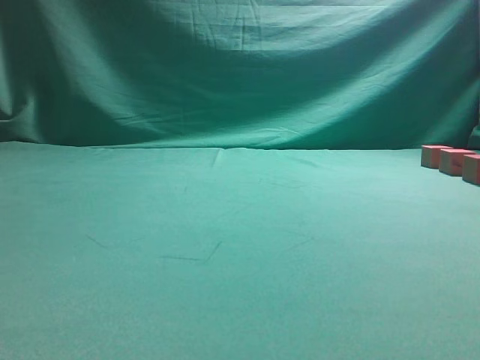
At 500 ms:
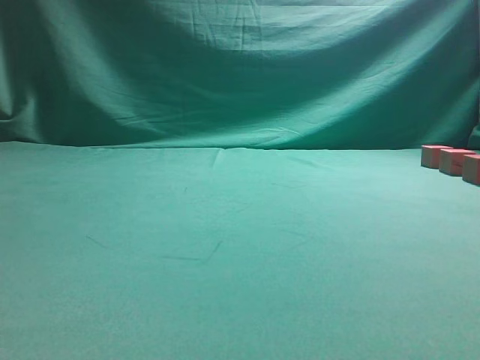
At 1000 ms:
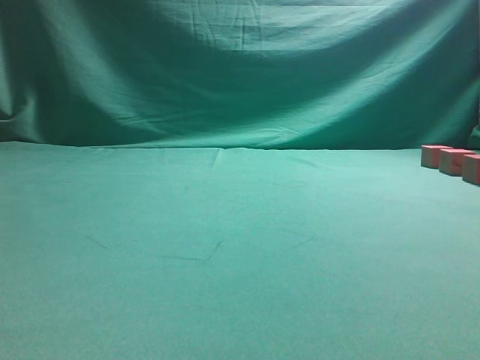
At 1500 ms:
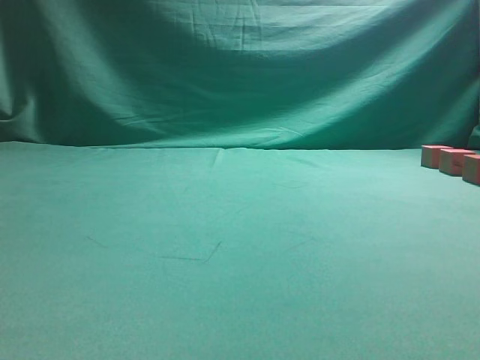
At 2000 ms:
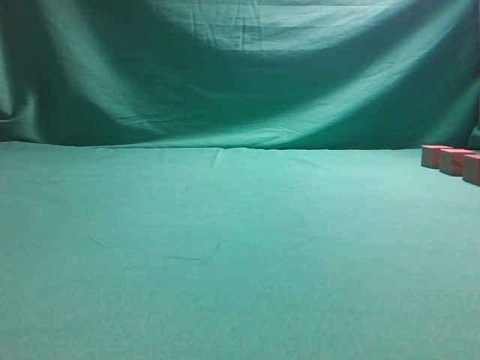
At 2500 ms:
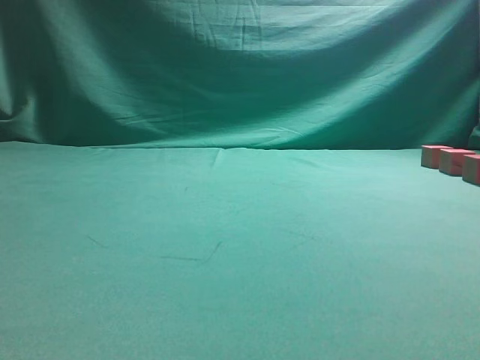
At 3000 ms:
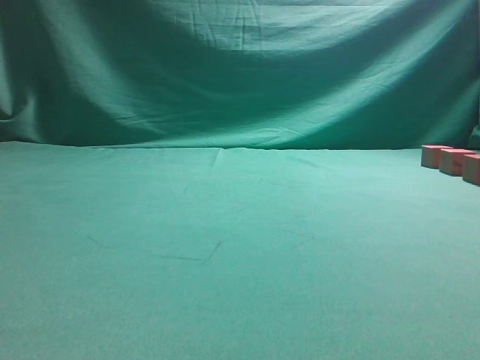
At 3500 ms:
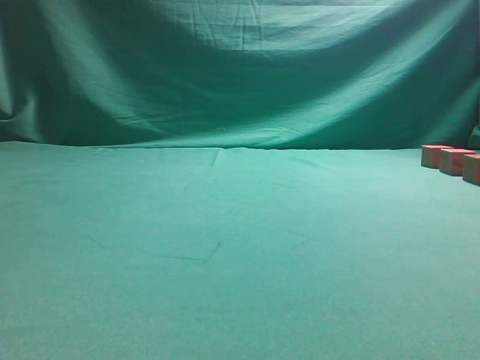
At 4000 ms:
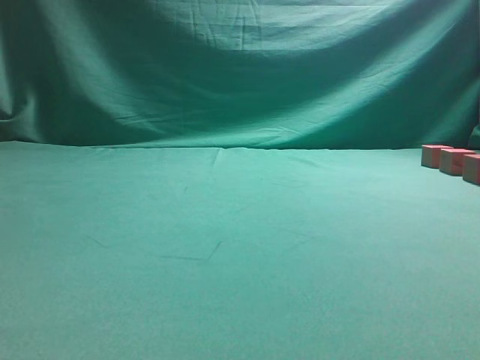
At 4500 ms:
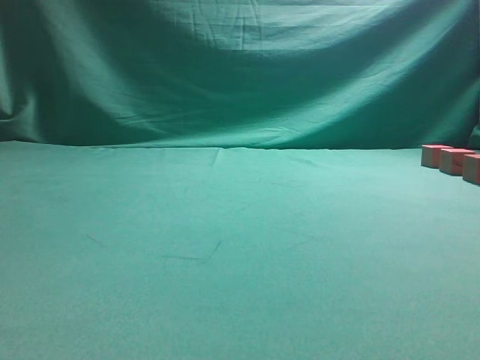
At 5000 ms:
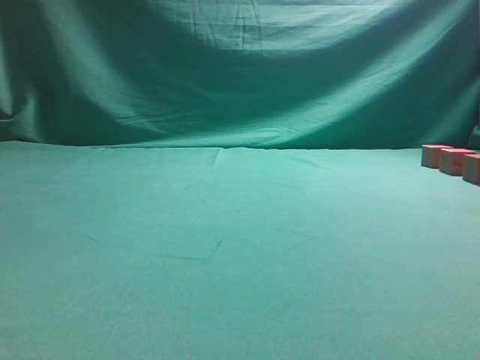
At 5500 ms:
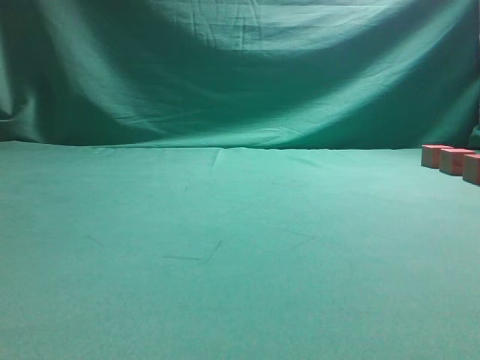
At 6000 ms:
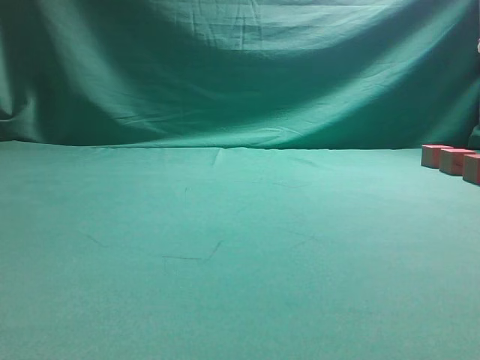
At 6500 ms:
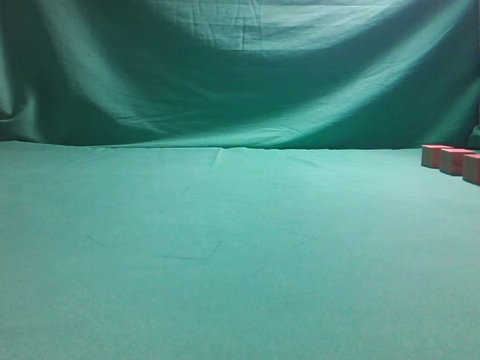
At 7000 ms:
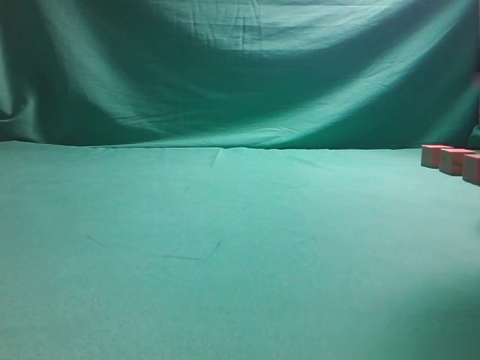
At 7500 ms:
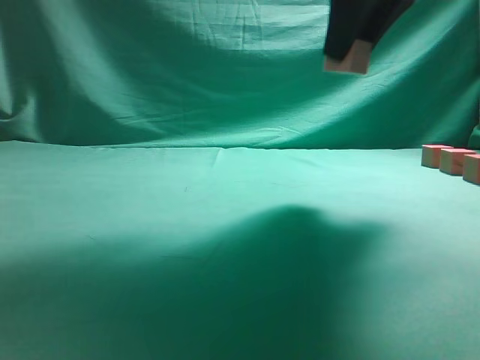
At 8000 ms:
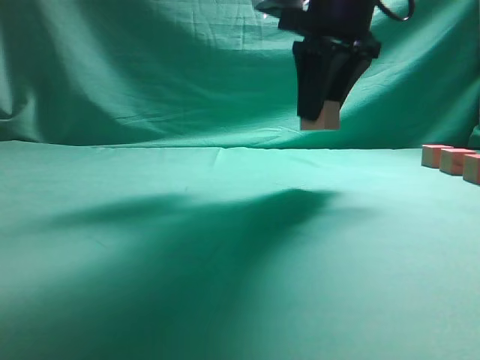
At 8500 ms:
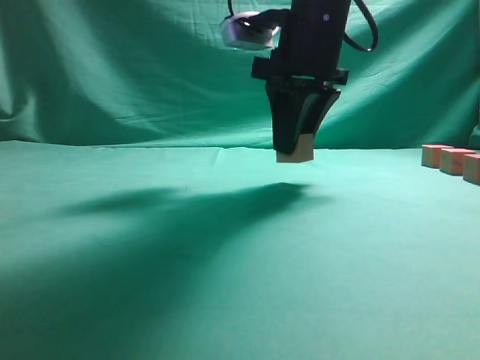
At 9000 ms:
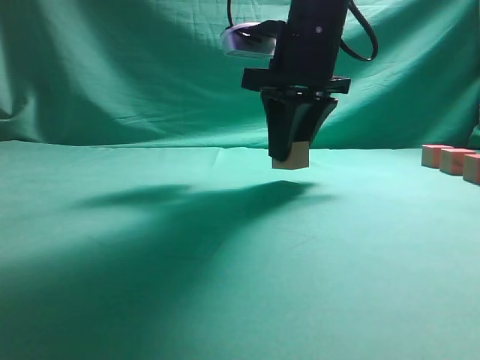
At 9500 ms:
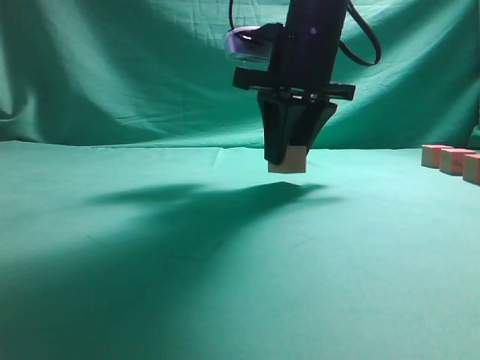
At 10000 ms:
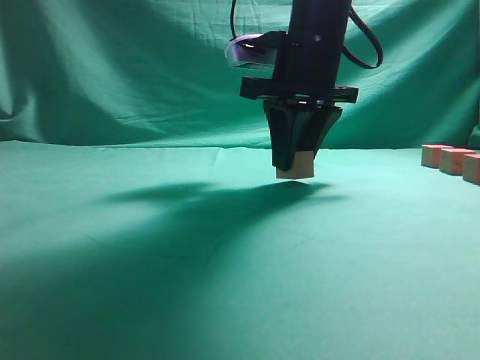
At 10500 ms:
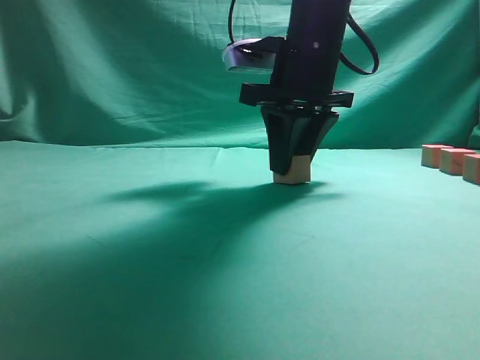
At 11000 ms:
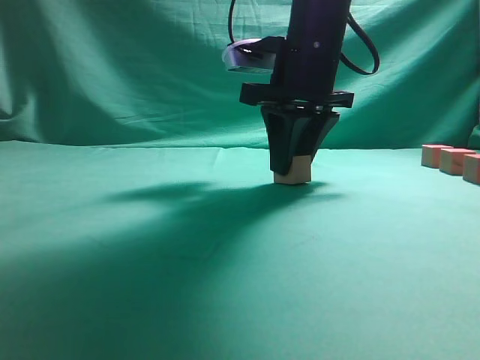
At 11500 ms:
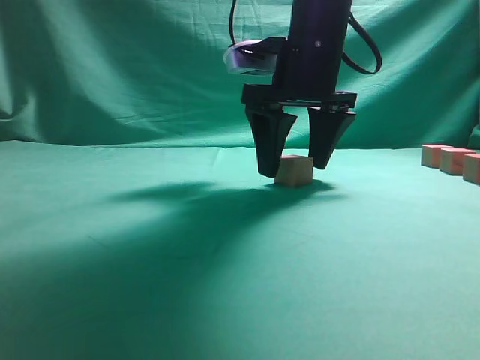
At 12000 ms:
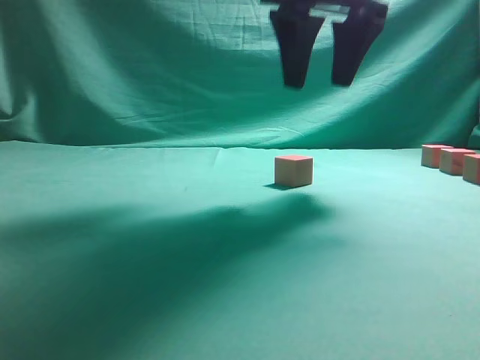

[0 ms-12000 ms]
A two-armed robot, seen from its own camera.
Task of the whole recording: pick up the multiple cubes in two columns one by one and place them in another position on the table.
Step, 7000 ms to 12000 ms: Place the block at the correct position to assemble the letter S.
6000 ms to 8000 ms: The right gripper goes approximately 20 cm to the left, forward and upward.
8000 ms to 10000 ms: The right gripper travels downward by about 5 cm.
10000 ms to 12000 ms: The right gripper heads upward, covering approximately 10 cm, and opens its fingers.

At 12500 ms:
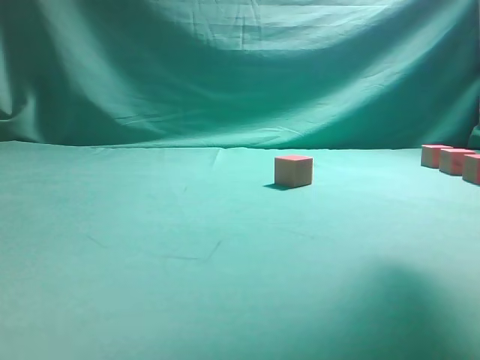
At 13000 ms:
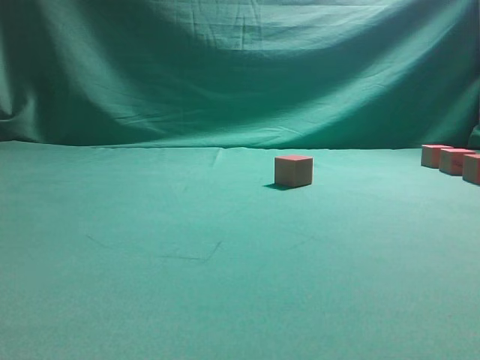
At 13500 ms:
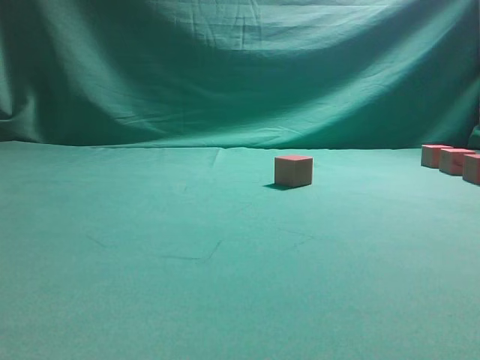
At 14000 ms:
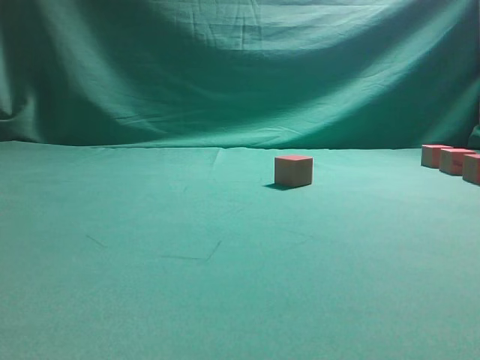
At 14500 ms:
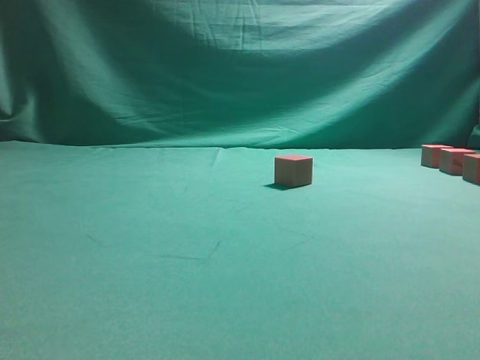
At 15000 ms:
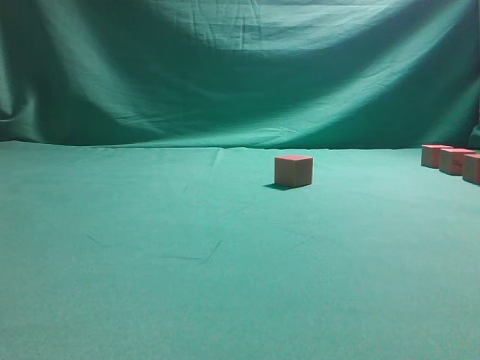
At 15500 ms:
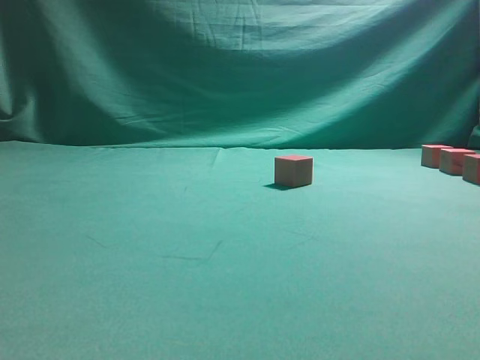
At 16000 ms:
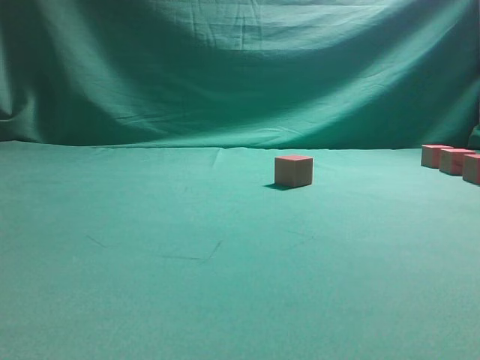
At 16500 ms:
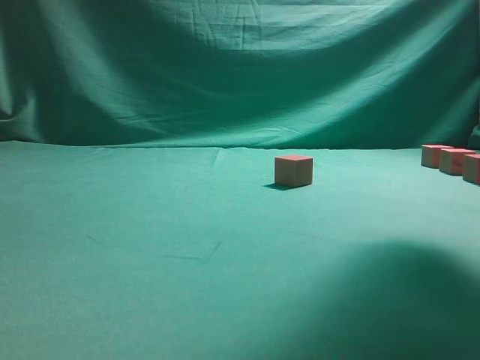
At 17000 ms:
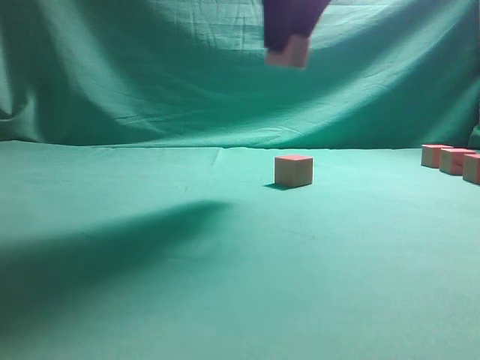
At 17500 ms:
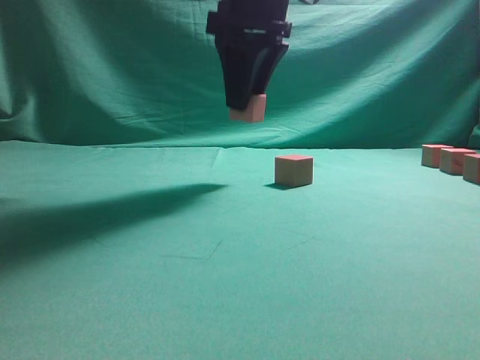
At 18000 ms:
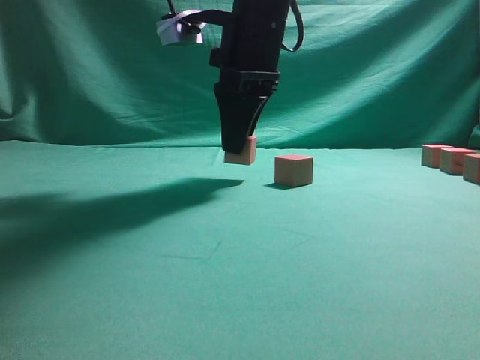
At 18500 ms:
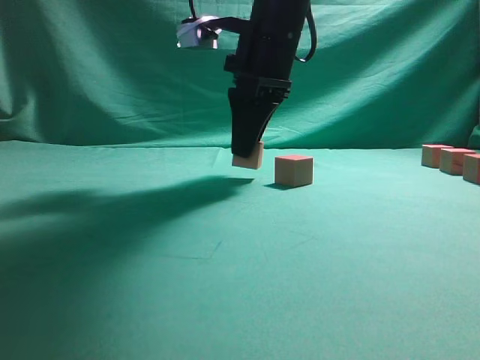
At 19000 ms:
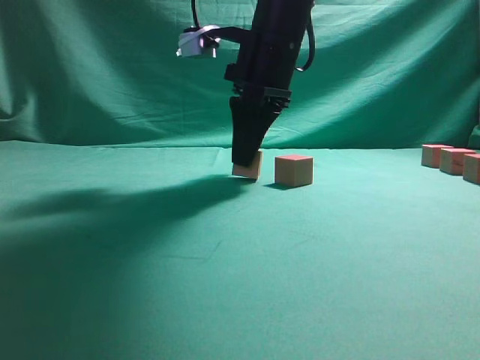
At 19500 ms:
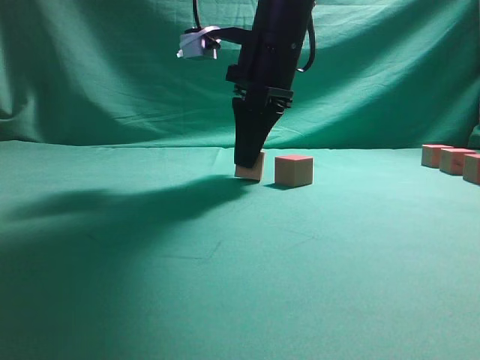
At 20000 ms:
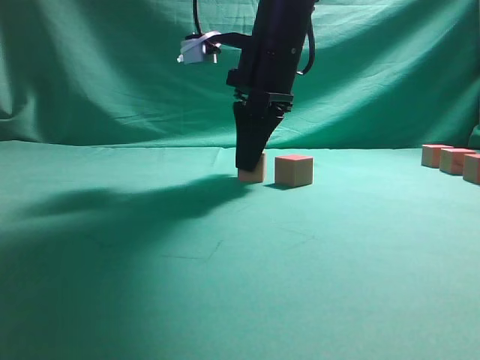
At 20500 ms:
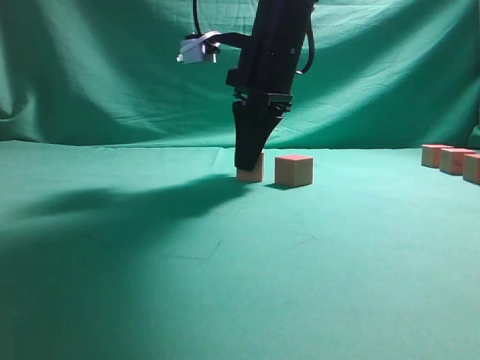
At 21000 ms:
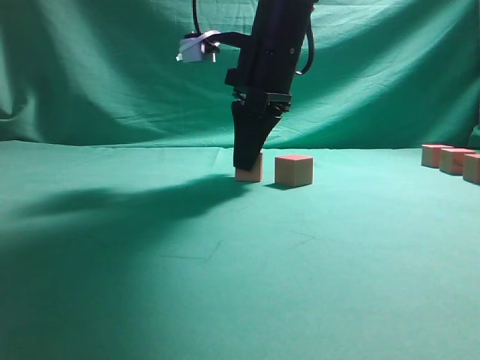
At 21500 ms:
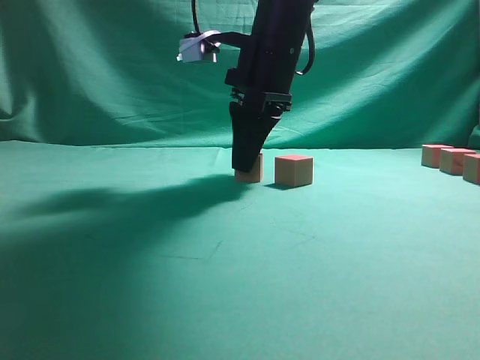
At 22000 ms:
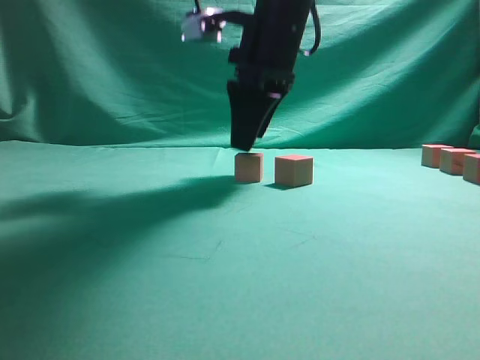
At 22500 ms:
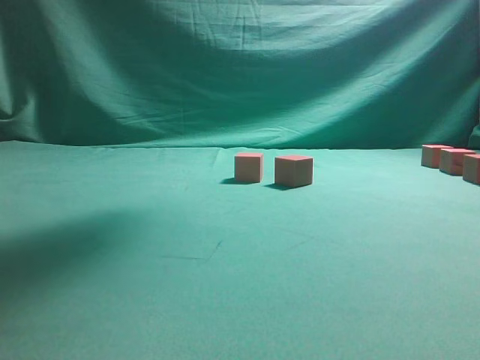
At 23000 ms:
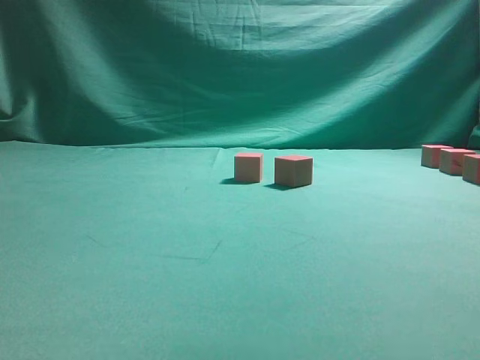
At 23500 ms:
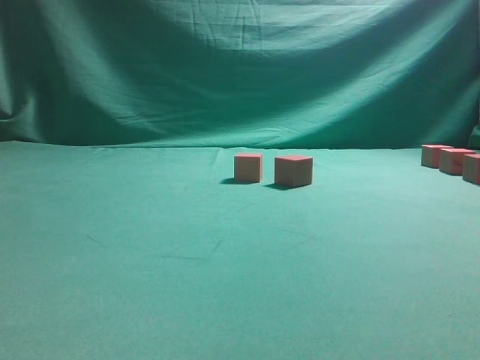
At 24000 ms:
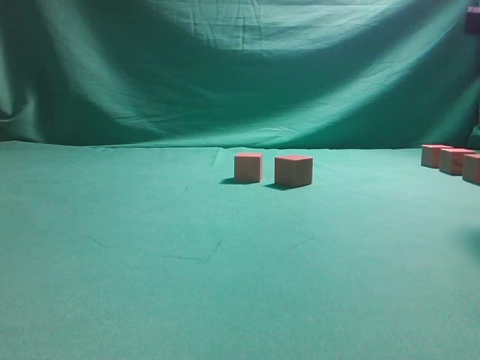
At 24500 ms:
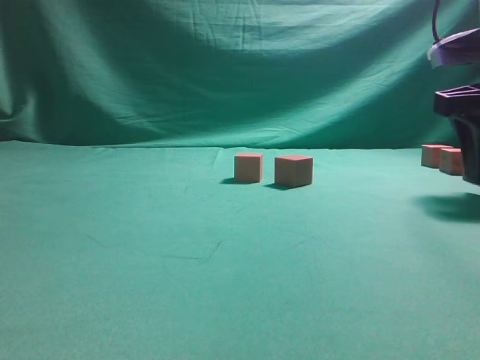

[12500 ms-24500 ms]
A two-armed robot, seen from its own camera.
Task of the whole recording: pick up the multiple cubes in two columns one by one and place them in another position on the table.
Step, 12500 ms to 16000 ms: Pick up the block on the table.
Step, 16500 ms to 22000 ms: Place the block at the correct position to assemble the letter S.
12500 ms to 14500 ms: The right gripper travels to the right and downward by approximately 25 cm.
14500 ms to 16500 ms: The right gripper travels to the left and upward by about 25 cm, and closes its fingers.
16500 ms to 18500 ms: The right gripper shifts roughly 25 cm to the left, downward and forward.
18500 ms to 20500 ms: The grippers move only a little.
20500 ms to 22500 ms: The right gripper travels upward by approximately 20 cm, and opens up.
22500 ms to 24500 ms: The right gripper shifts approximately 25 cm downward and to the right.

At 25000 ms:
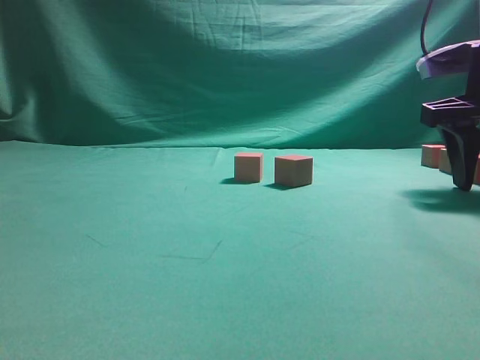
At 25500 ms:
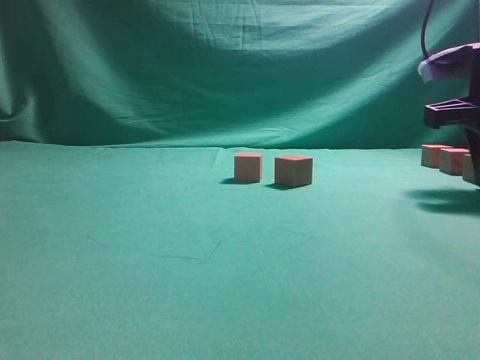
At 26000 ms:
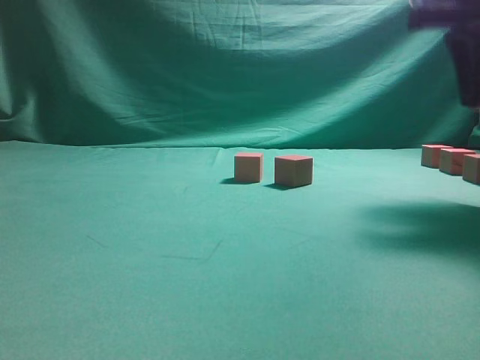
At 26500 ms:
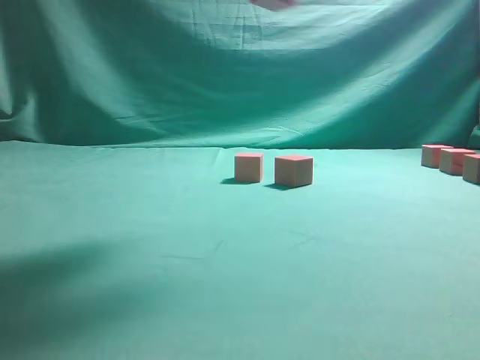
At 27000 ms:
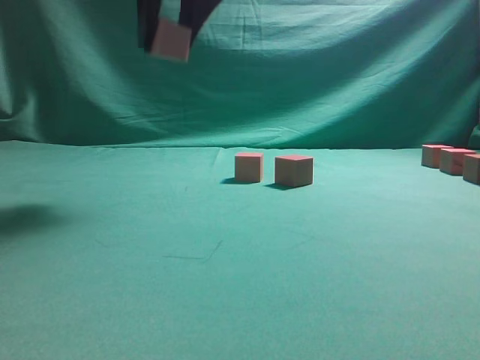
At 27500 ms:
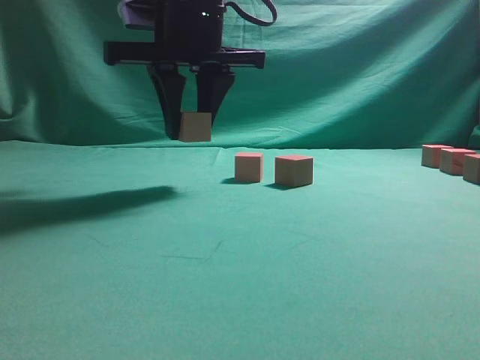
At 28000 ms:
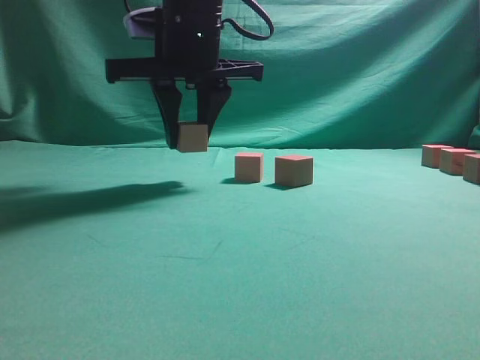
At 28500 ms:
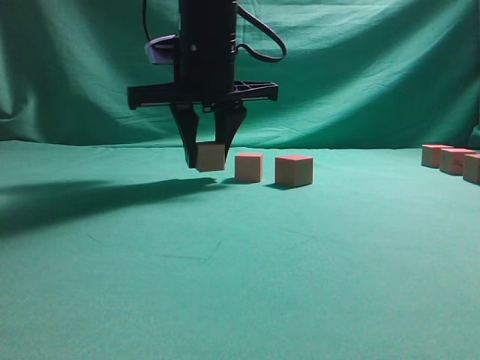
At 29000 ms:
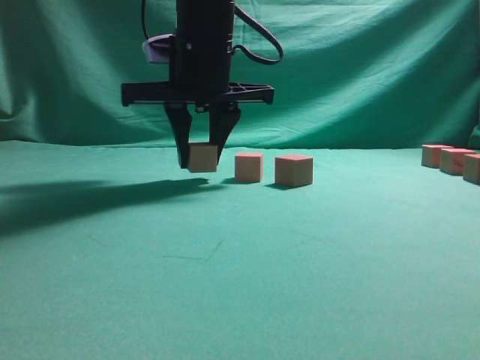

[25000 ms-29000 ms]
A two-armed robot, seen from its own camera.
Task of the whole recording: pick up the multiple cubes in two columns one by one and place them in another position on the table.
25000 ms to 27000 ms: The right gripper goes about 30 cm to the left and upward, and closes.
27000 ms to 29000 ms: The right gripper travels downward and forward by approximately 15 cm.
